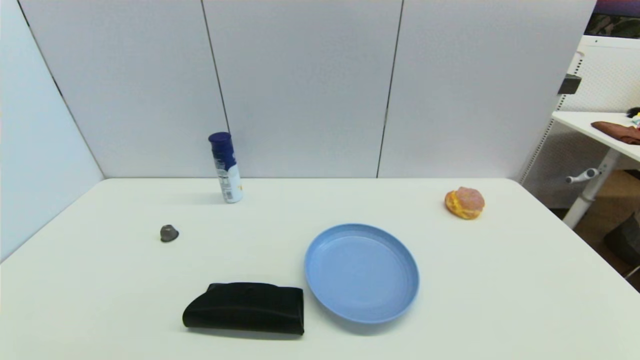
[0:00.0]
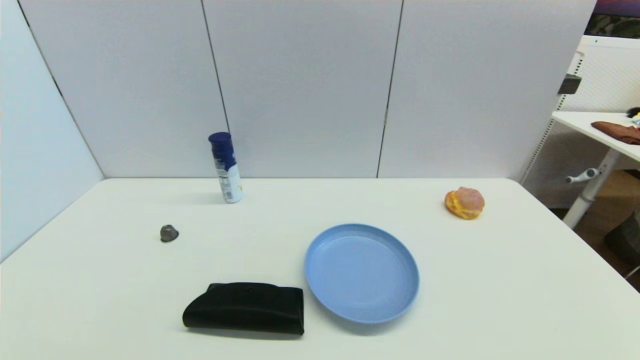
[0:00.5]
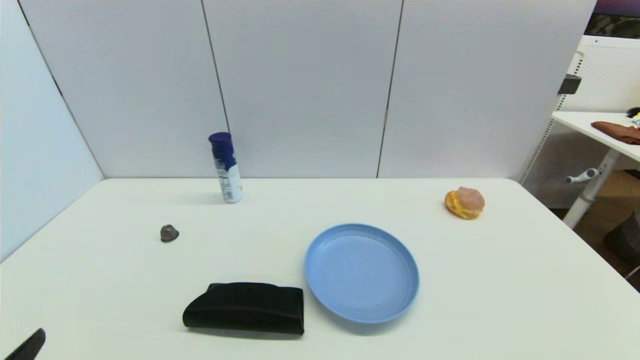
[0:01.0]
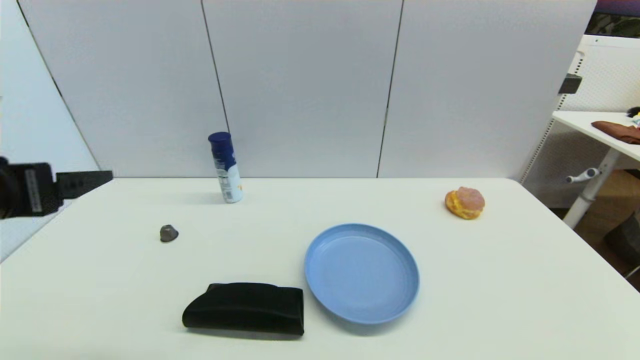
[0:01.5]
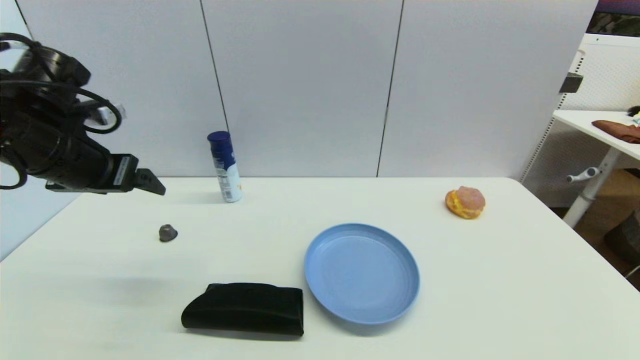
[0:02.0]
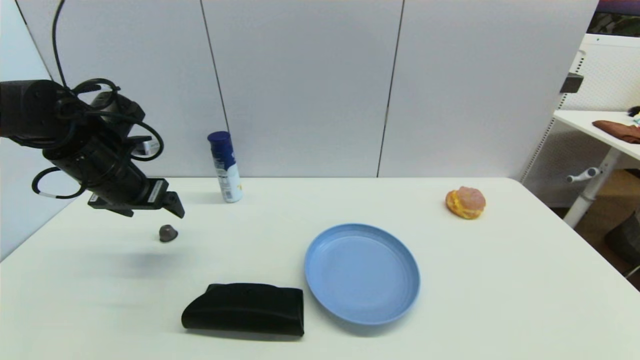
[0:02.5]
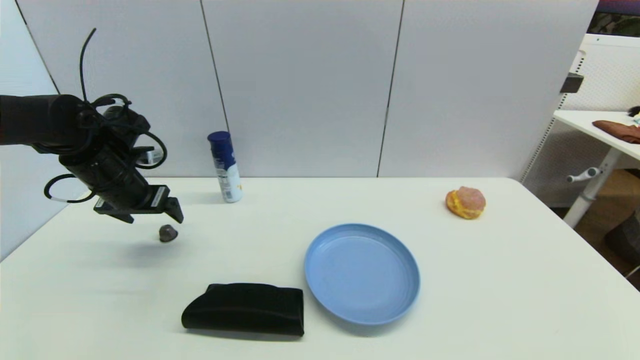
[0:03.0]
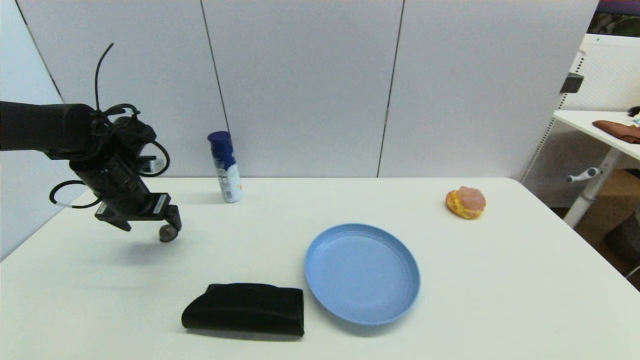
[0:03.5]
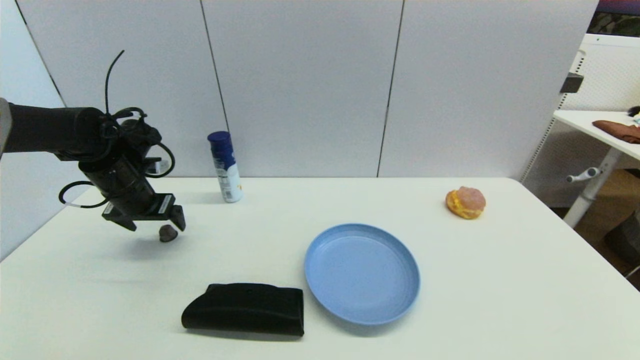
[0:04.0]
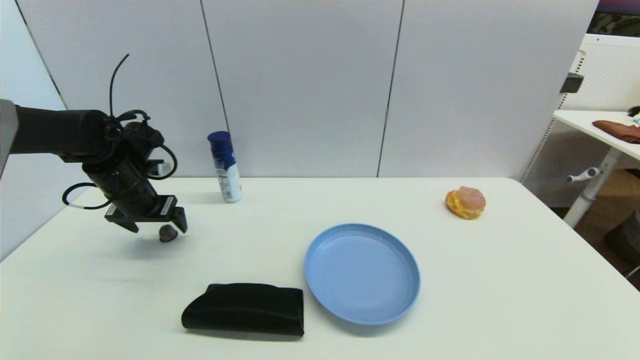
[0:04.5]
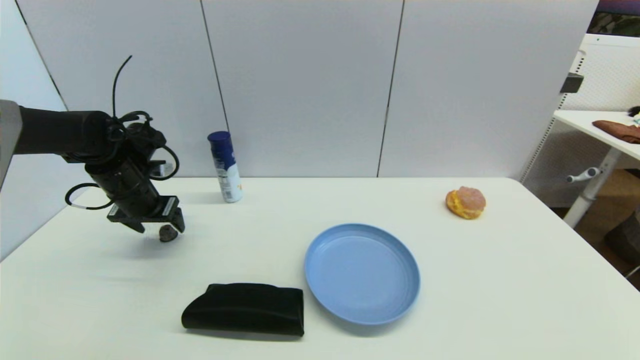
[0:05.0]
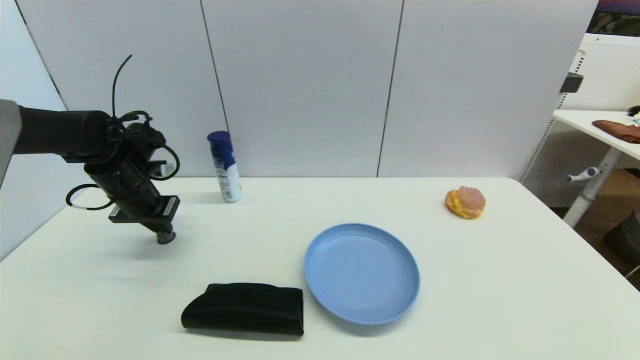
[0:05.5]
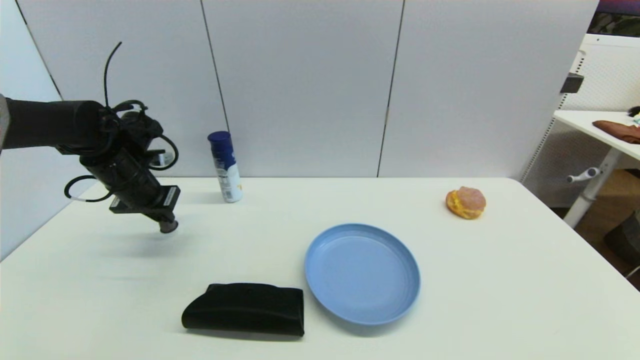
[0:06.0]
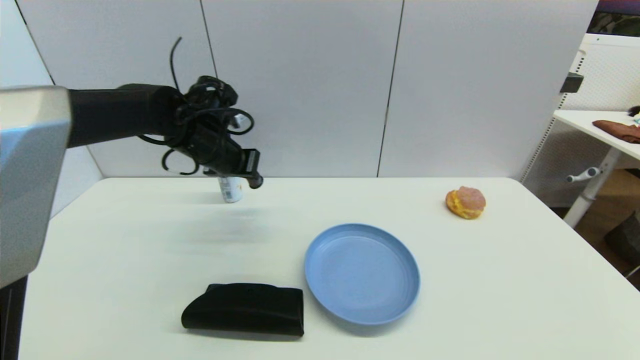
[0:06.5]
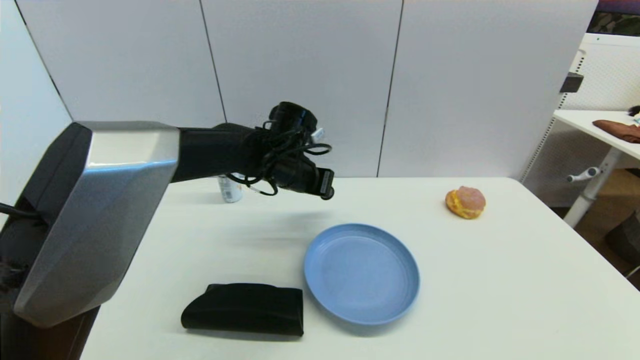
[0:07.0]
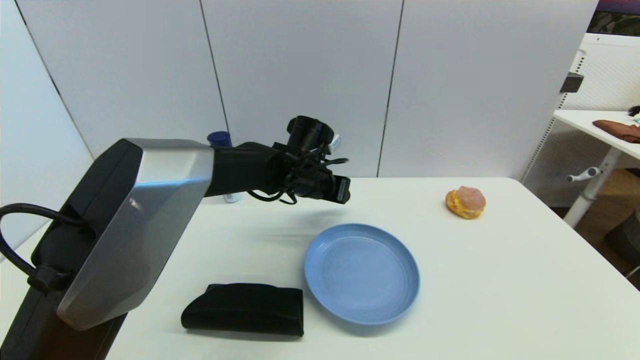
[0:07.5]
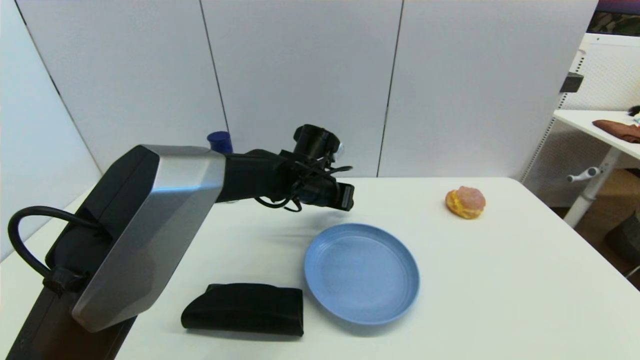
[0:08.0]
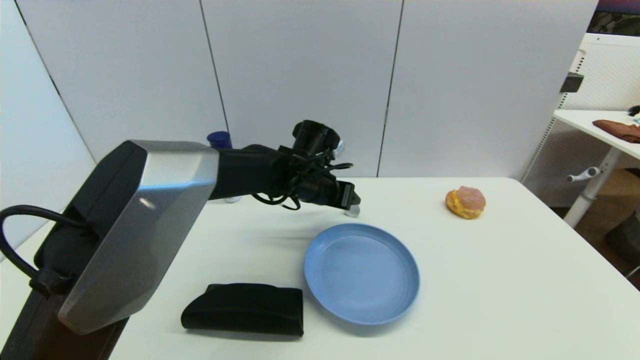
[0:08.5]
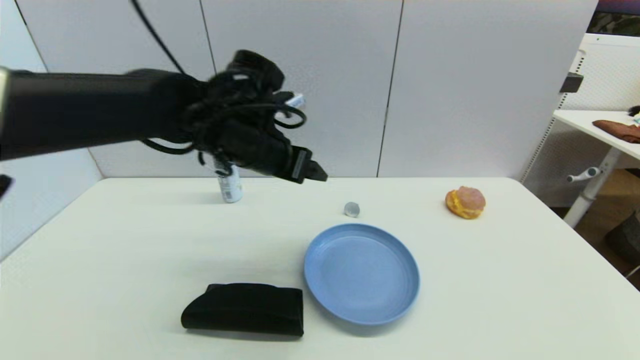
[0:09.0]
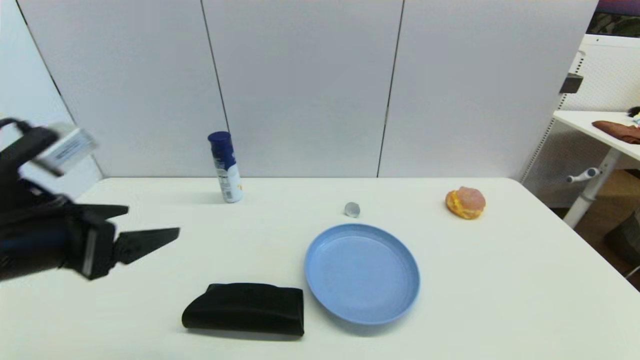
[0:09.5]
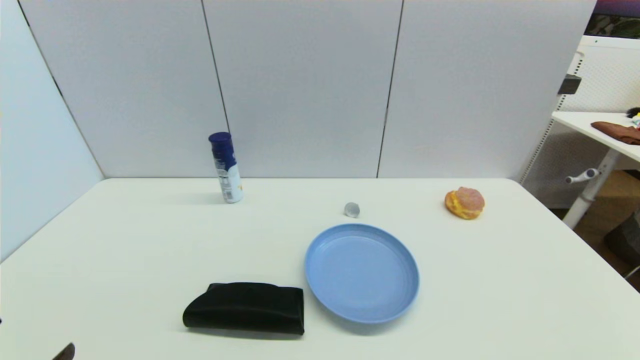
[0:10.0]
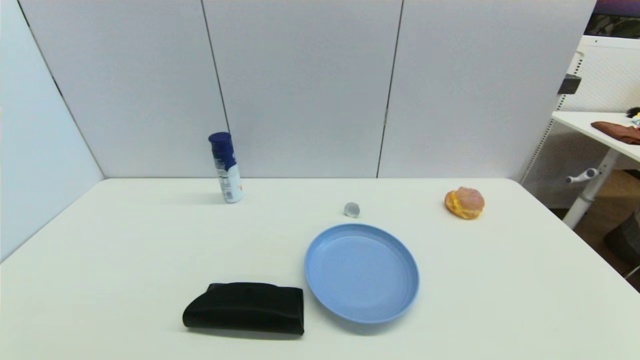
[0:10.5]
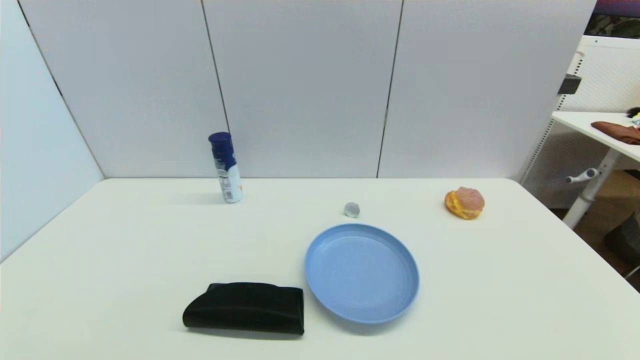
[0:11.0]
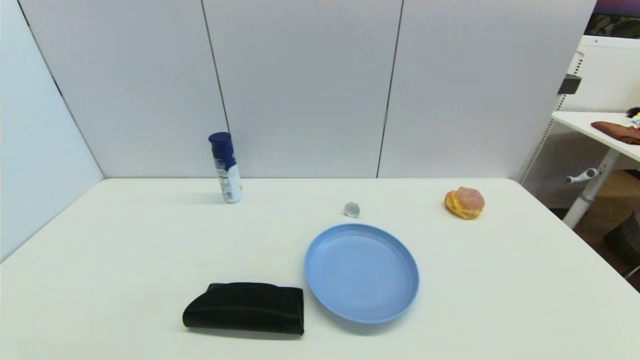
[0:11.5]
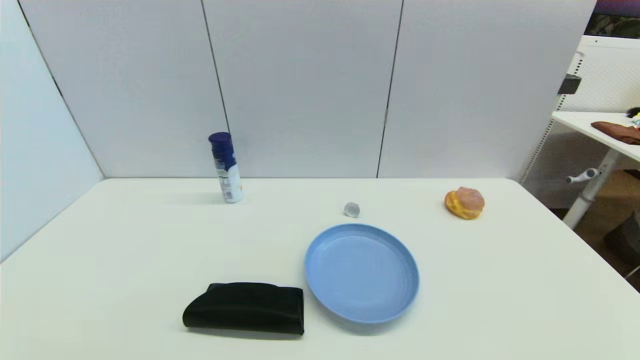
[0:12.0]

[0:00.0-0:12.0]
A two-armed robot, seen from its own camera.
Step, 0:01.0 to 0:05.5: Grasp the coffee capsule with left gripper.
Step, 0:06.0 to 0:08.0: Place the coffee capsule on the table with left gripper.
0:00.0 to 0:02.0: The left gripper moves forward and upward, some 35 cm.
0:02.0 to 0:04.0: The left gripper goes some 15 cm downward and forward.
0:04.0 to 0:06.0: The left gripper closes.
0:06.0 to 0:08.0: The left gripper goes approximately 30 cm to the right.
0:08.0 to 0:10.0: The left gripper shifts approximately 50 cm backward and to the left, and opens.
